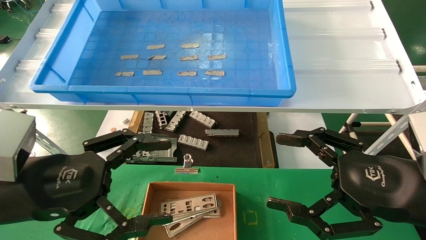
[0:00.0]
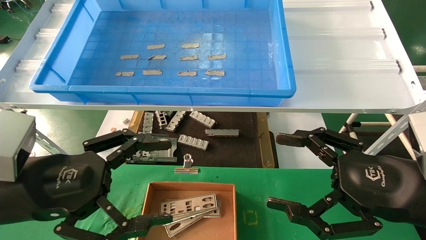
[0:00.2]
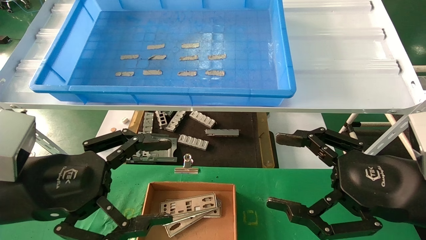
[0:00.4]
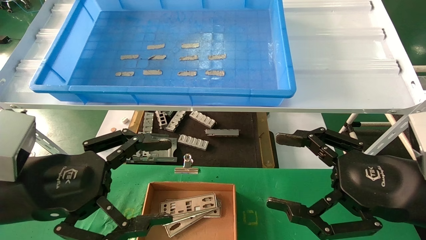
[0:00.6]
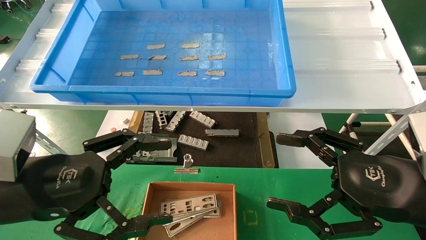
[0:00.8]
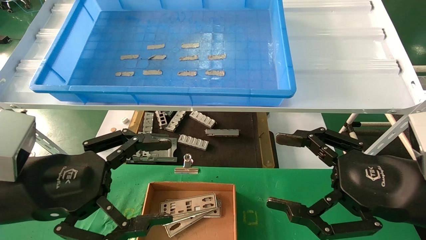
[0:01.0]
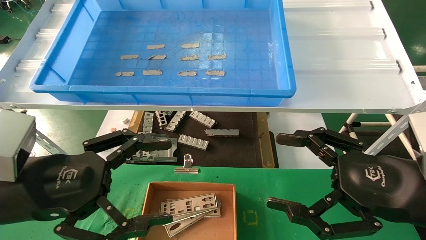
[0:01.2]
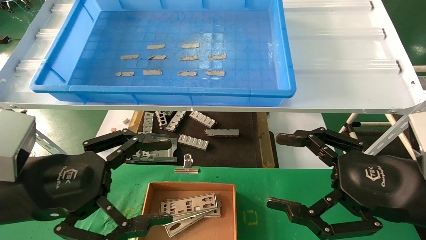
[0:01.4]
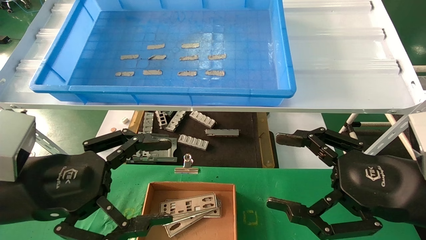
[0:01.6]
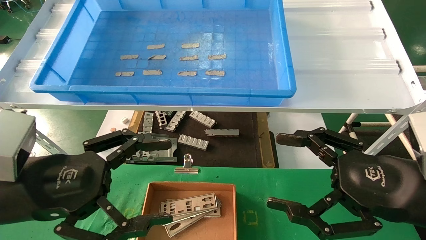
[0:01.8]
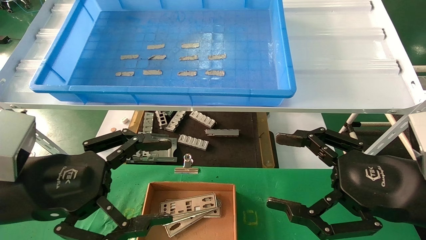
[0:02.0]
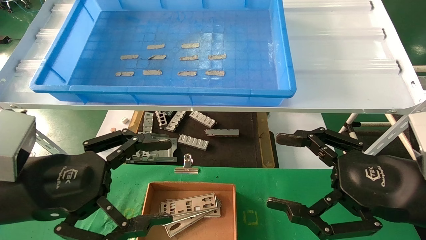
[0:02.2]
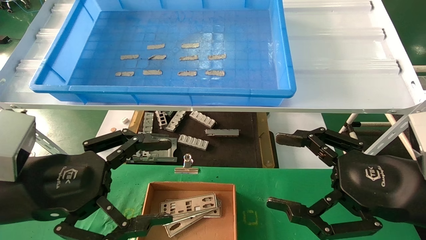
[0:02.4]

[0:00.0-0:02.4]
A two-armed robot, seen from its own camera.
Task of the whole recording: pick up the parts on the tray and put them in the cardboard box.
0:00.0 to 0:02.4: The two grippers keep their place.
